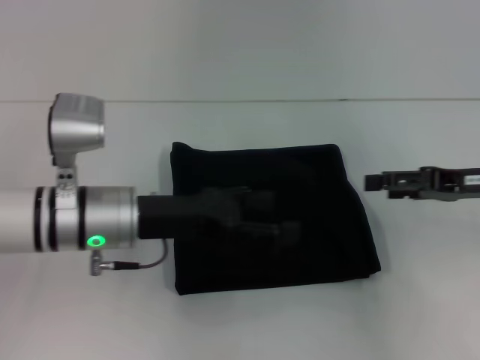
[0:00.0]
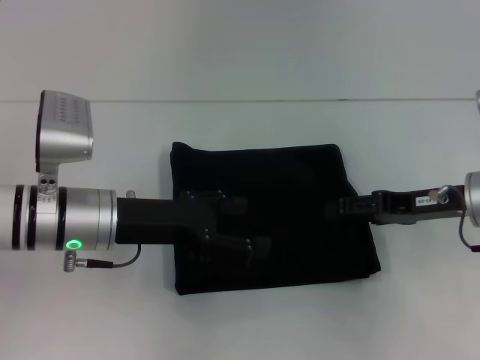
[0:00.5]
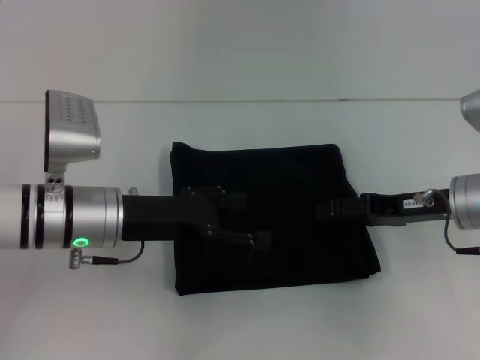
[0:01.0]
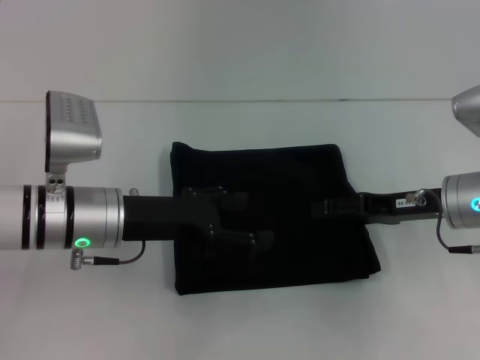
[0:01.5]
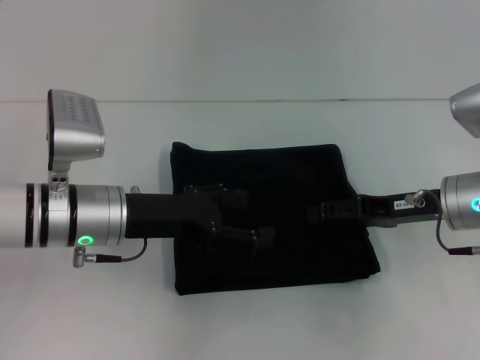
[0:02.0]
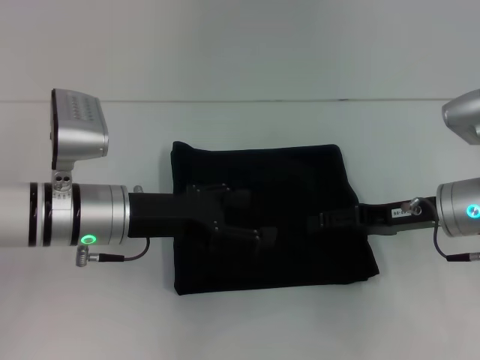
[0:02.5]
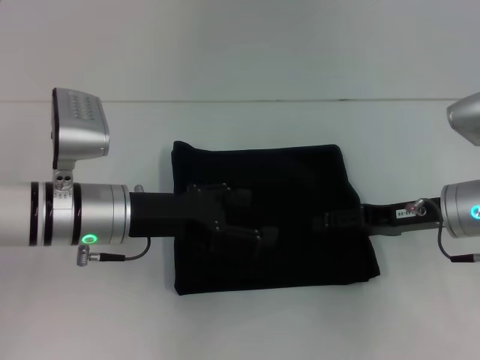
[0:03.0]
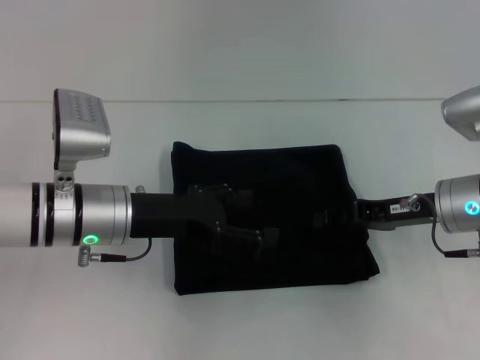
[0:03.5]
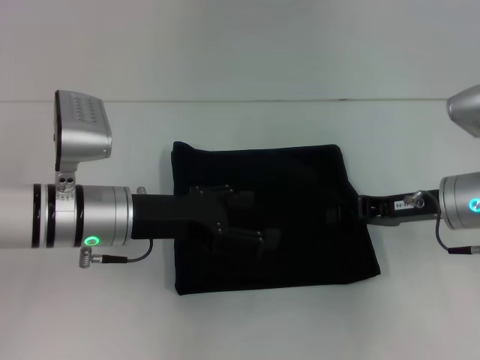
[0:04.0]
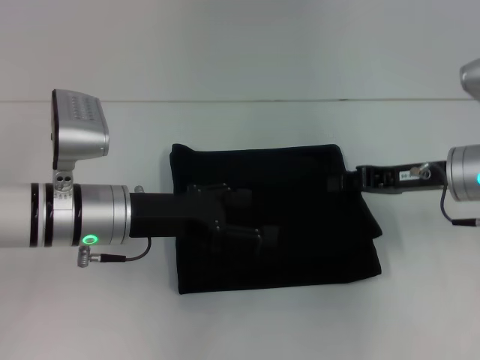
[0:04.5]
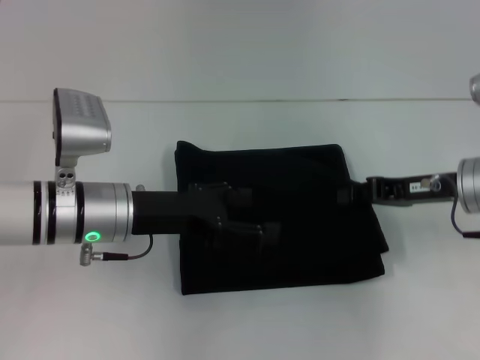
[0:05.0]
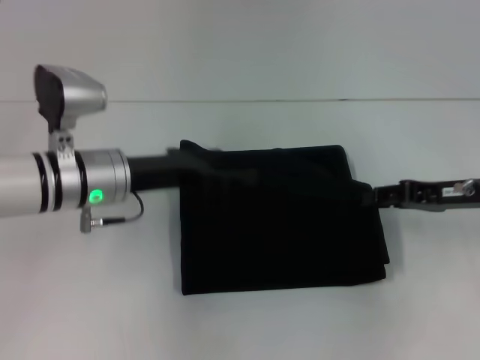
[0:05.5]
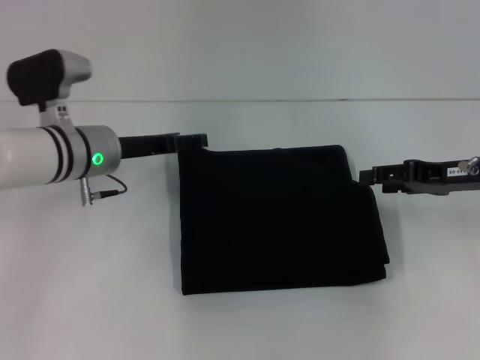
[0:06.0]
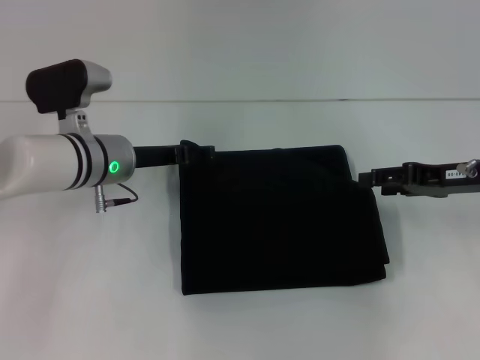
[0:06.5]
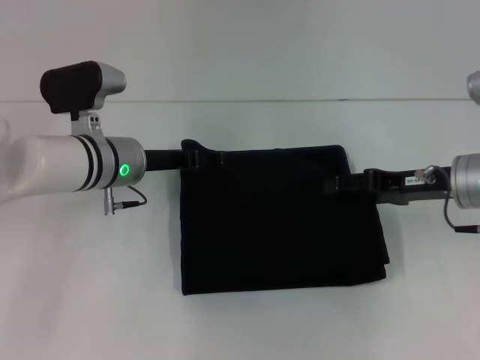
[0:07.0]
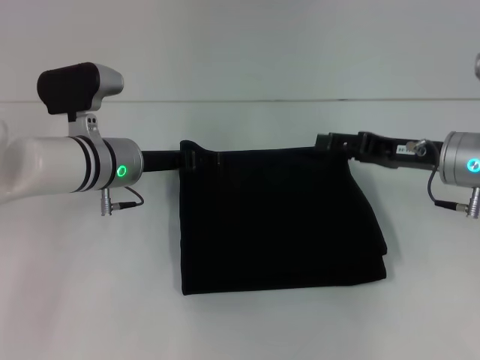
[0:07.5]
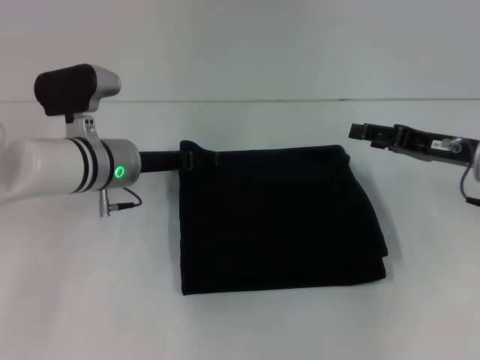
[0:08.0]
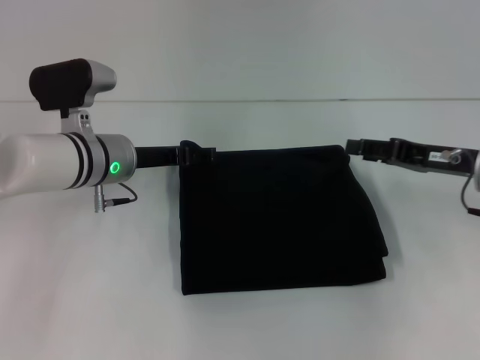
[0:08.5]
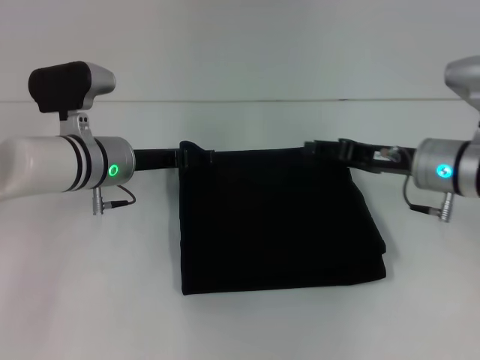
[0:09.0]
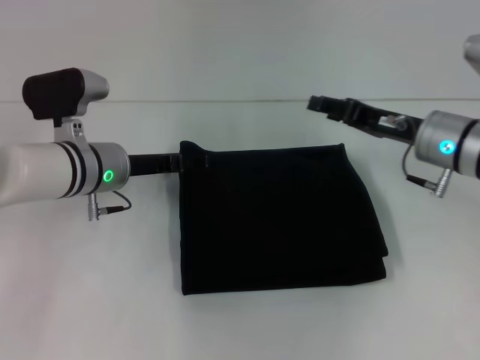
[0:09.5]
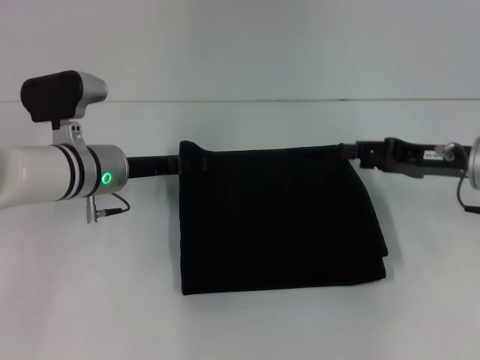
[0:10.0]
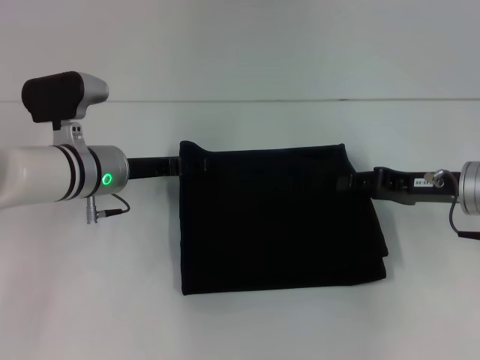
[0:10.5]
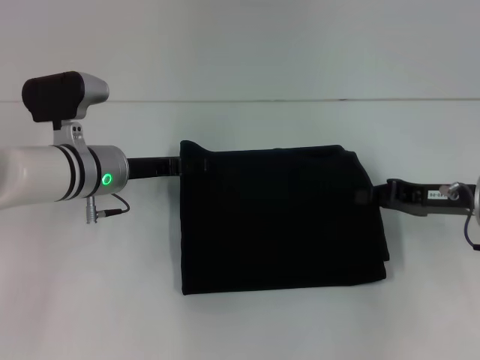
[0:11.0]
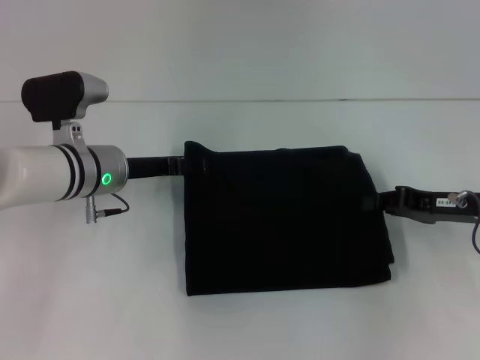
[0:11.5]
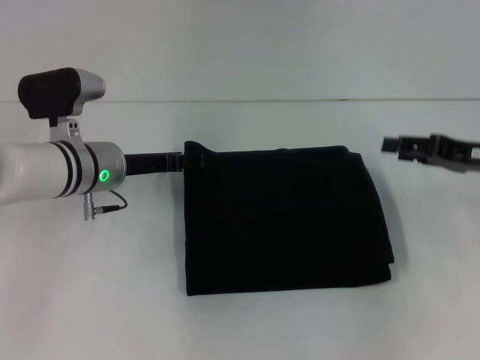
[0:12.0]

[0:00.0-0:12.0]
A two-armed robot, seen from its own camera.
0:00.0 to 0:02.0: The right gripper heads to the left, covering some 5 cm.
0:02.0 to 0:04.0: The right gripper closes up.
0:04.0 to 0:06.0: The left gripper heads forward, covering about 10 cm. Meanwhile the right gripper changes place by some 5 cm, and opens.
0:06.0 to 0:08.0: The grippers make only small movements.
0:10.0 to 0:12.0: The right gripper closes and opens again.

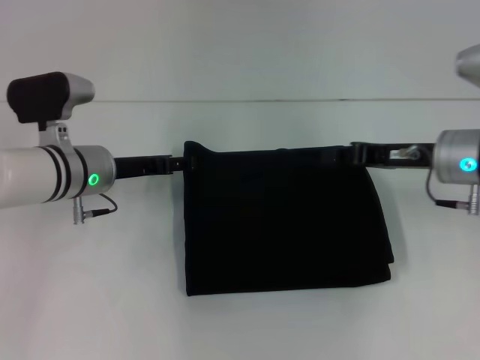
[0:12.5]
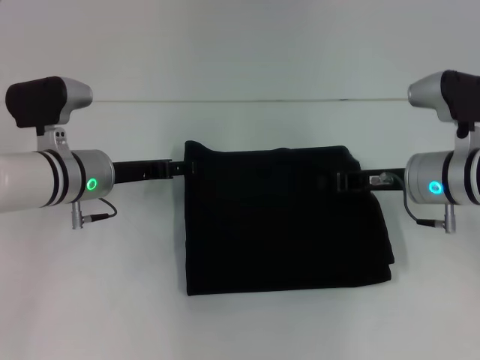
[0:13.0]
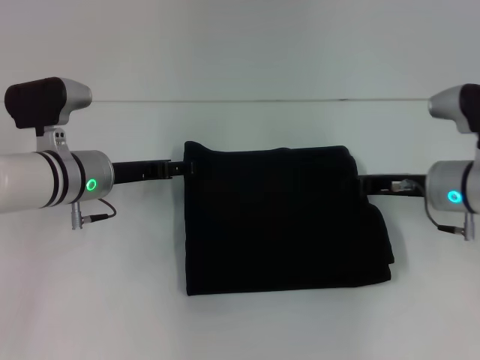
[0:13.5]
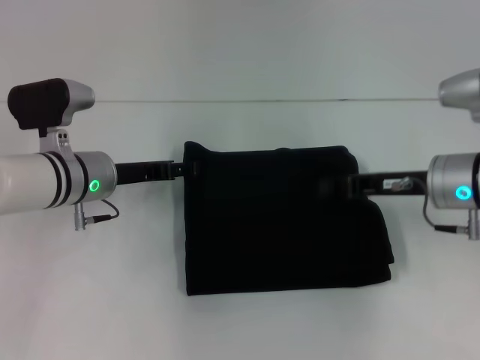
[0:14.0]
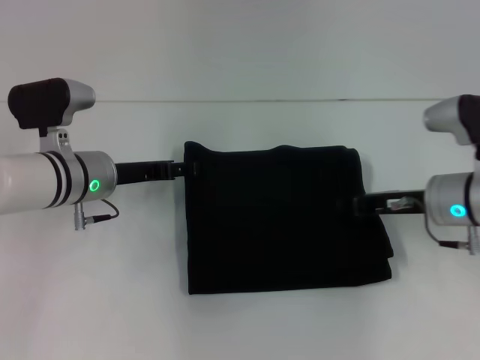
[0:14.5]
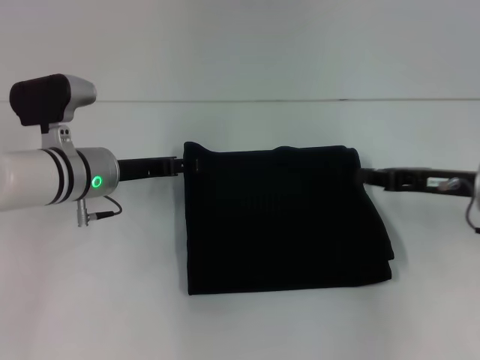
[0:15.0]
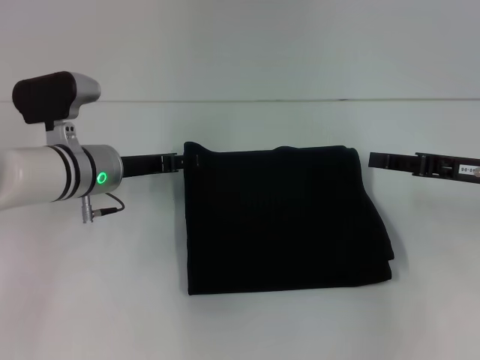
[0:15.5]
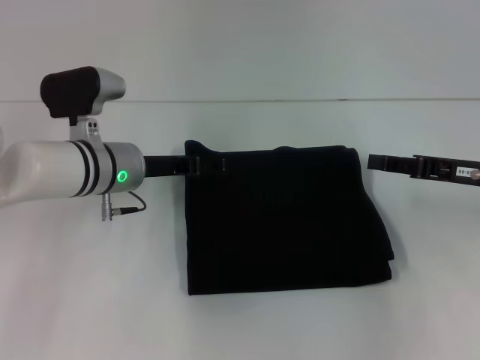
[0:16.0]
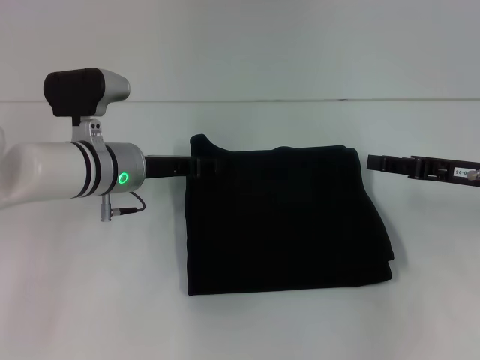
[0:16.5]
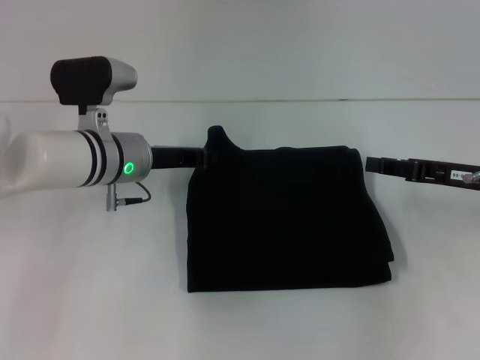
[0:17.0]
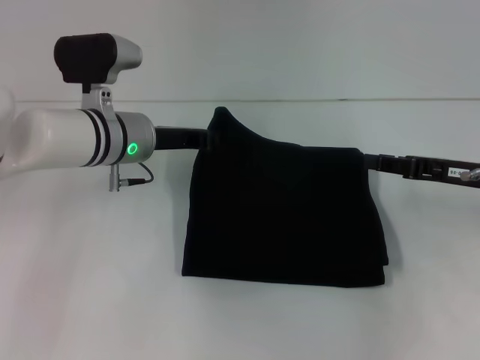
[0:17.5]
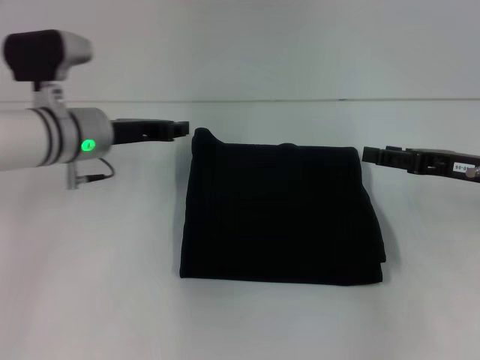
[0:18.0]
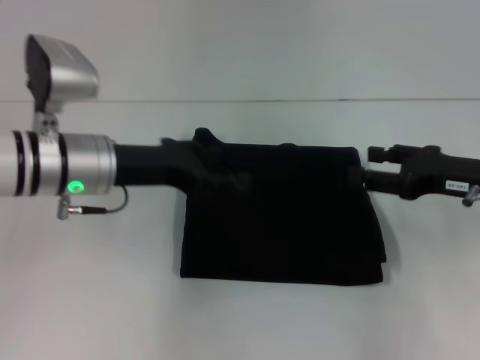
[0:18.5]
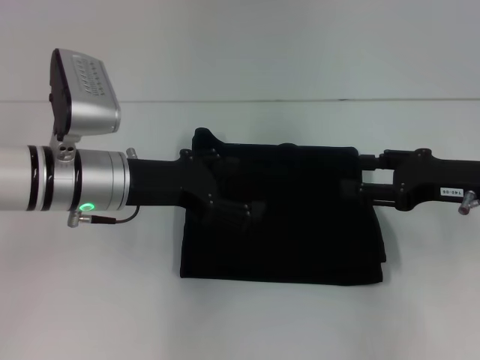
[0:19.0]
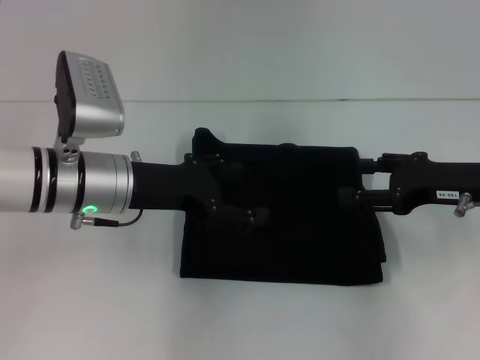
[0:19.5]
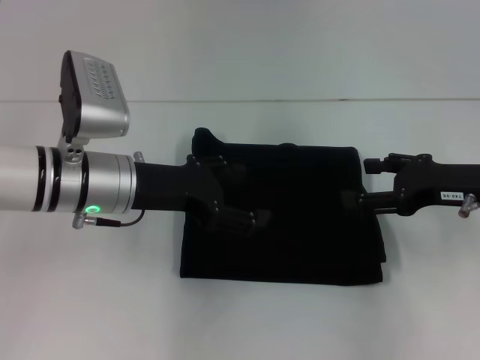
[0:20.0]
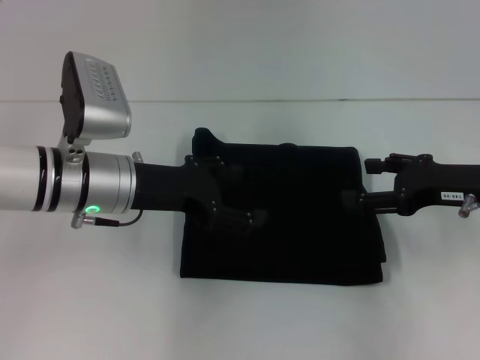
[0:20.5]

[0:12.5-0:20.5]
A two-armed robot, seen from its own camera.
0:12.5 to 0:14.5: The right gripper closes up.
0:14.5 to 0:16.5: The right gripper travels to the right by roughly 5 cm, and opens its fingers.
0:16.5 to 0:18.5: The left gripper travels upward by roughly 5 cm, and closes and opens again.
0:18.5 to 0:20.5: The left gripper opens.
